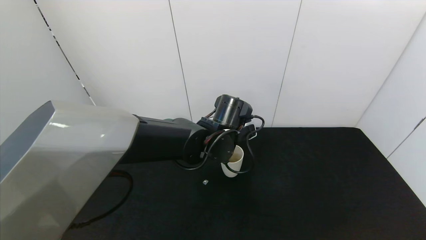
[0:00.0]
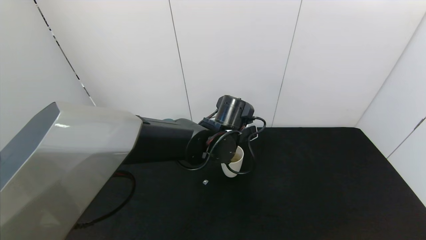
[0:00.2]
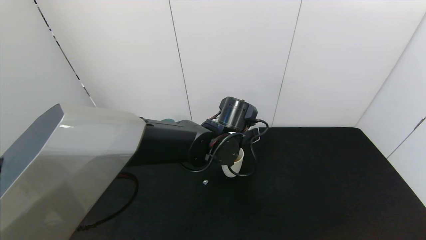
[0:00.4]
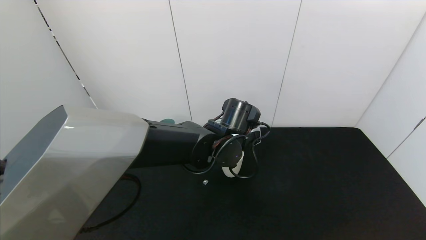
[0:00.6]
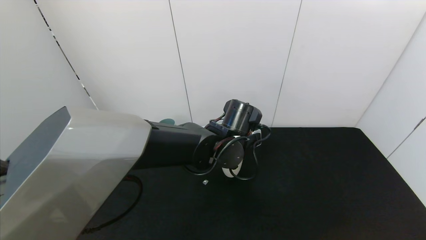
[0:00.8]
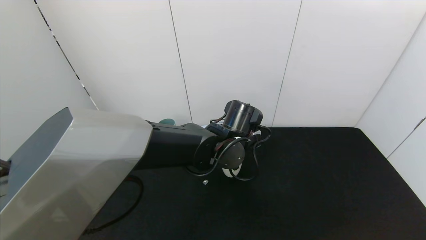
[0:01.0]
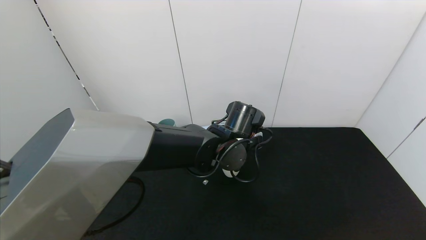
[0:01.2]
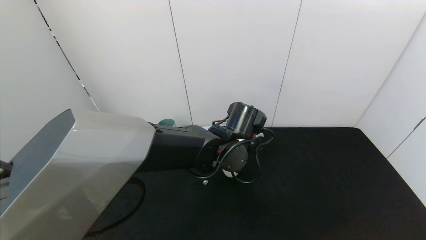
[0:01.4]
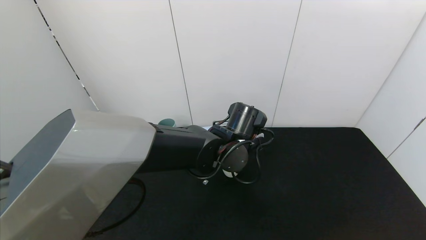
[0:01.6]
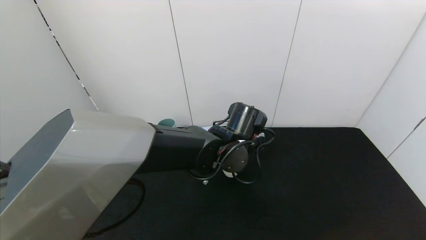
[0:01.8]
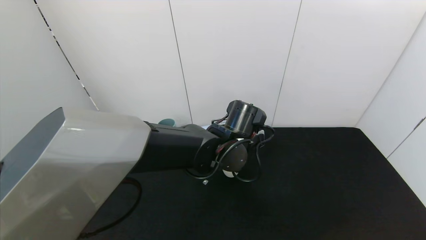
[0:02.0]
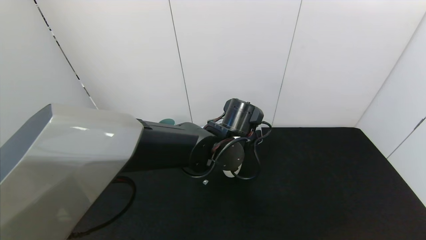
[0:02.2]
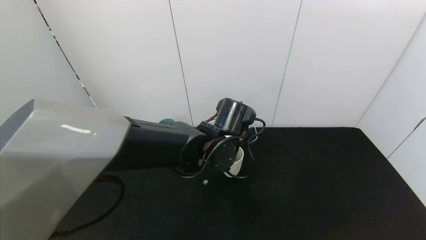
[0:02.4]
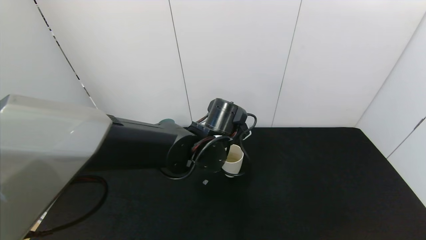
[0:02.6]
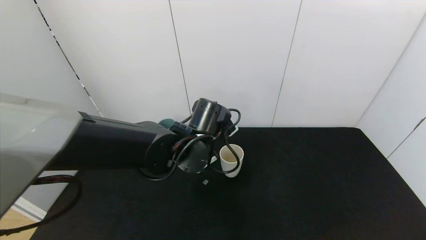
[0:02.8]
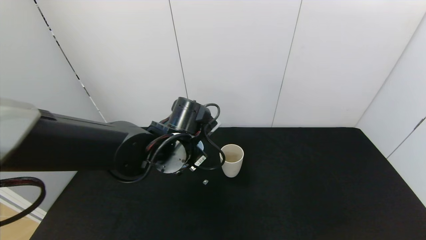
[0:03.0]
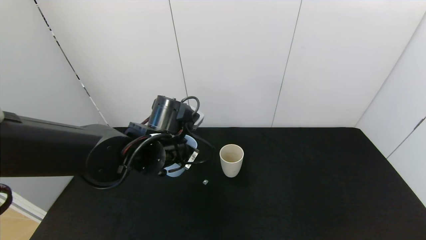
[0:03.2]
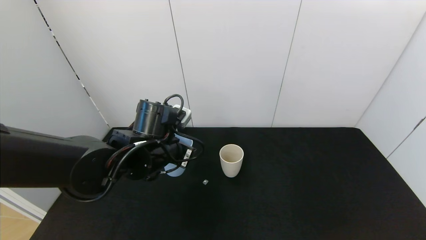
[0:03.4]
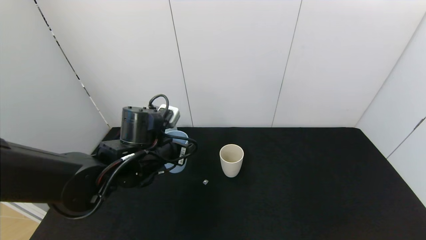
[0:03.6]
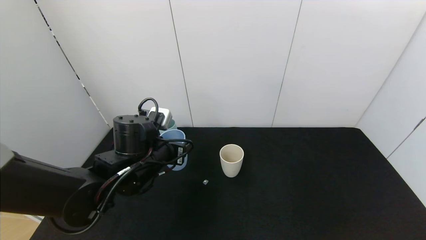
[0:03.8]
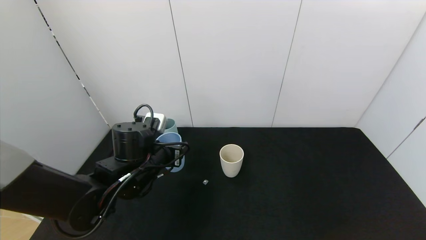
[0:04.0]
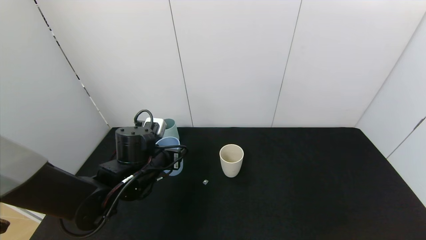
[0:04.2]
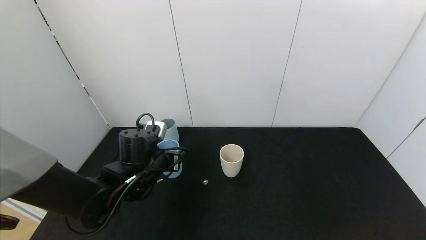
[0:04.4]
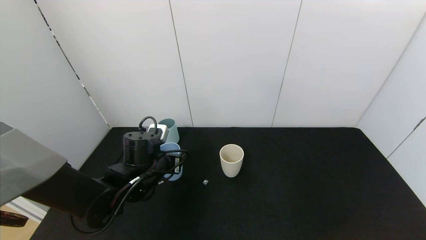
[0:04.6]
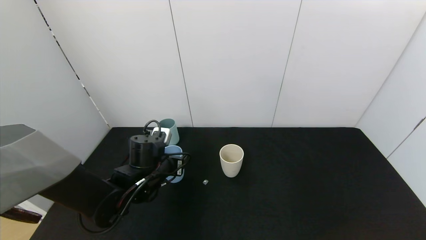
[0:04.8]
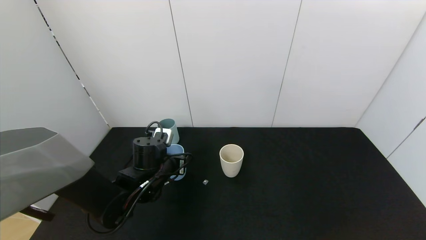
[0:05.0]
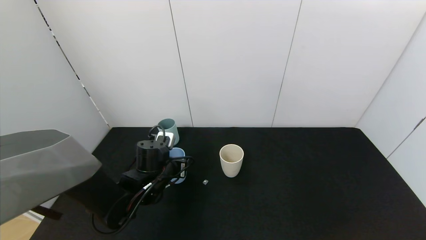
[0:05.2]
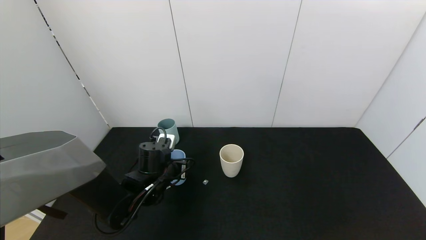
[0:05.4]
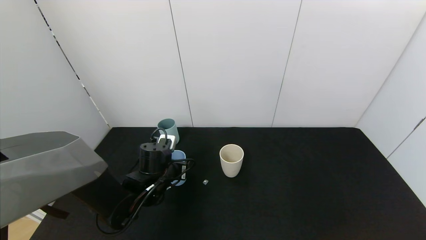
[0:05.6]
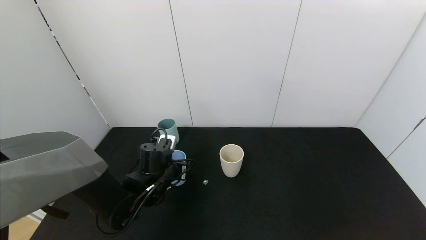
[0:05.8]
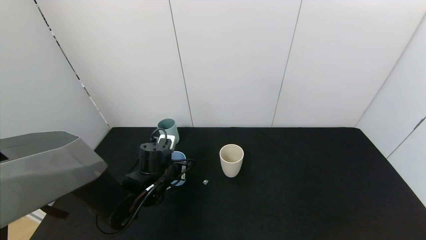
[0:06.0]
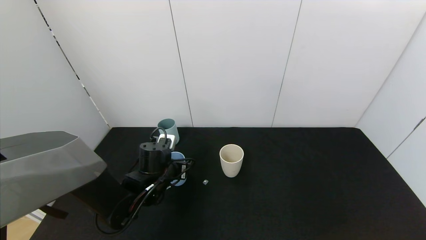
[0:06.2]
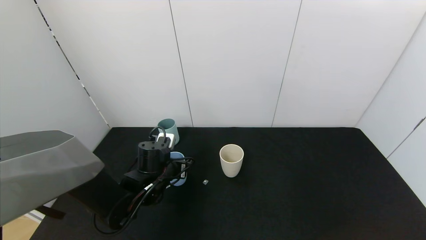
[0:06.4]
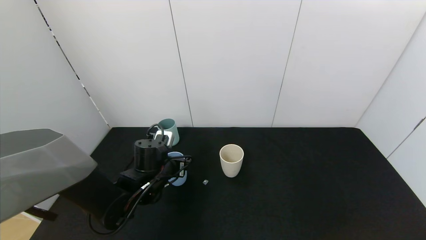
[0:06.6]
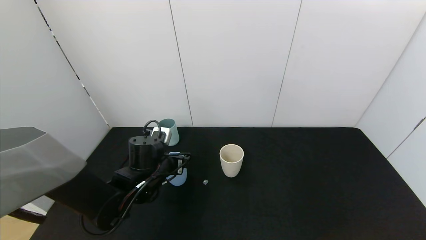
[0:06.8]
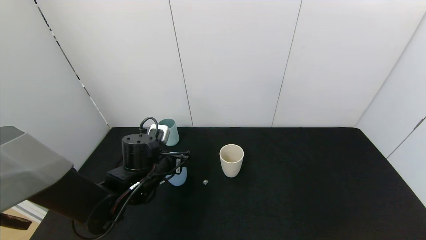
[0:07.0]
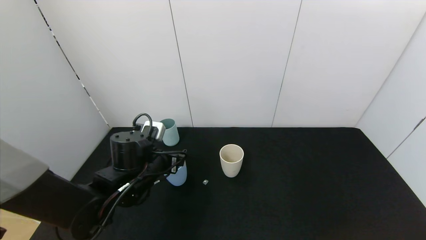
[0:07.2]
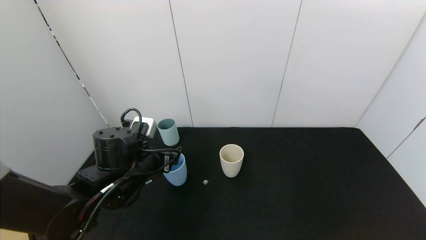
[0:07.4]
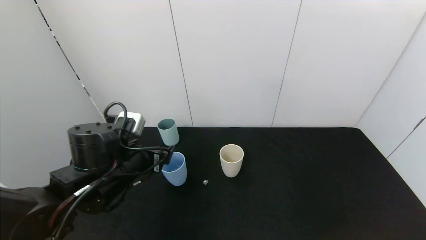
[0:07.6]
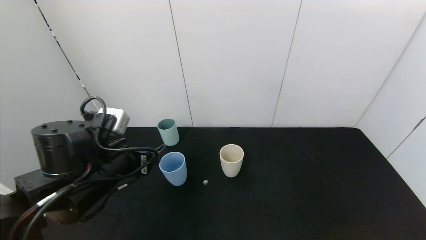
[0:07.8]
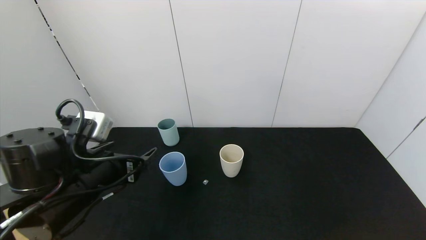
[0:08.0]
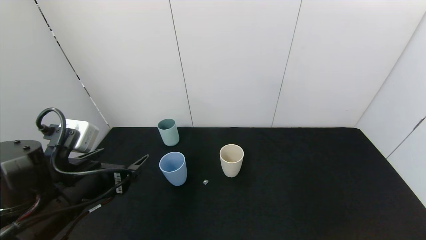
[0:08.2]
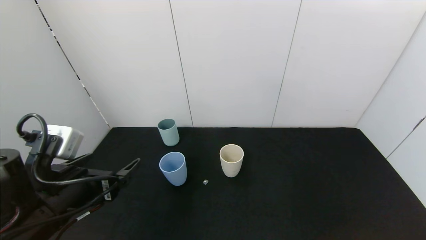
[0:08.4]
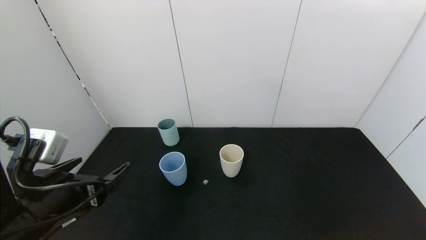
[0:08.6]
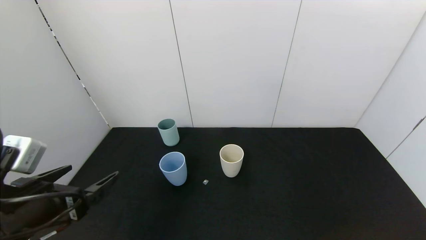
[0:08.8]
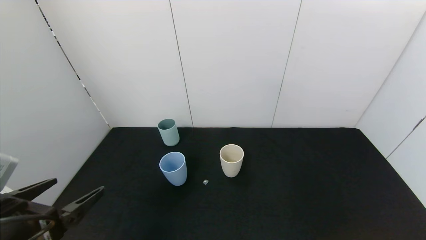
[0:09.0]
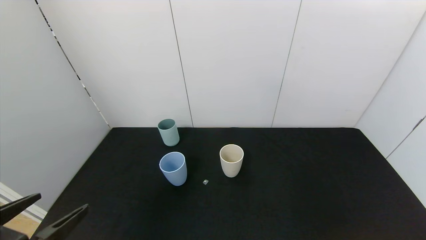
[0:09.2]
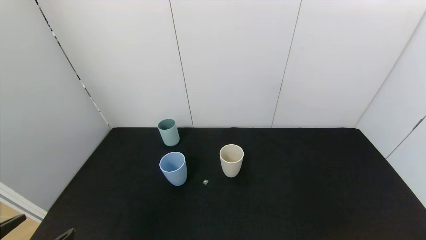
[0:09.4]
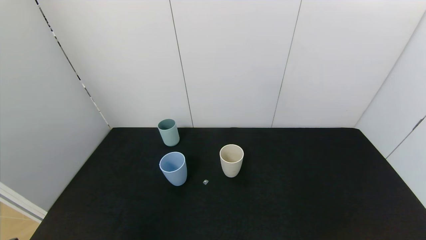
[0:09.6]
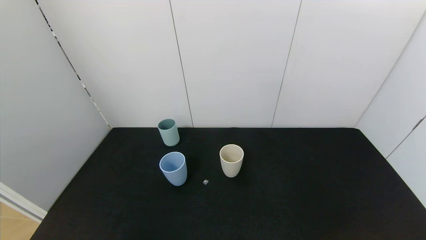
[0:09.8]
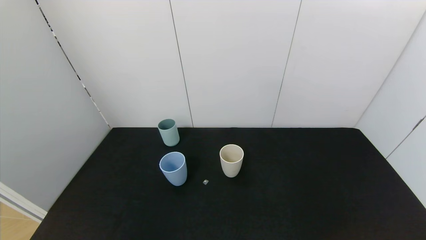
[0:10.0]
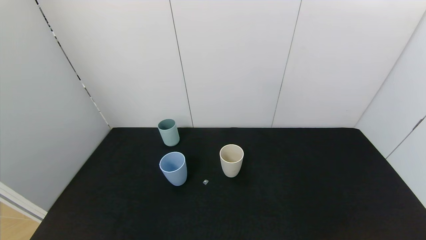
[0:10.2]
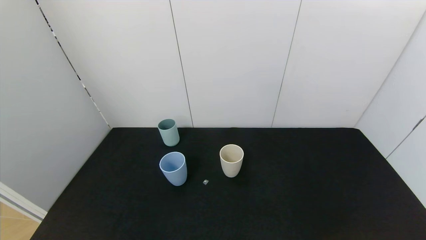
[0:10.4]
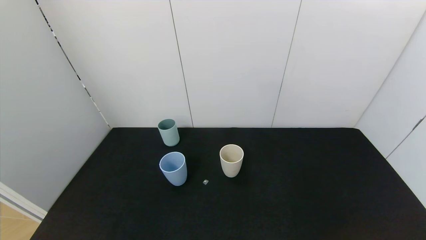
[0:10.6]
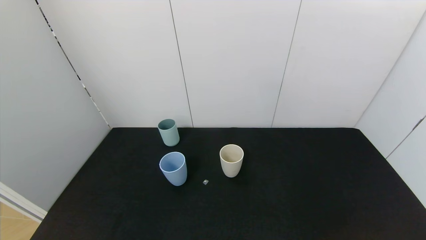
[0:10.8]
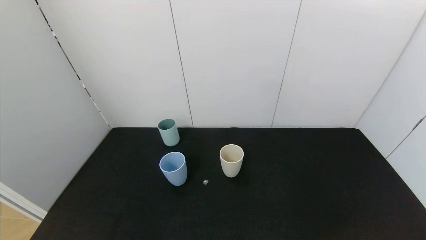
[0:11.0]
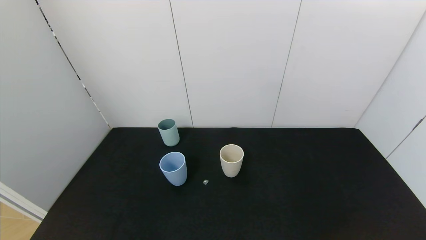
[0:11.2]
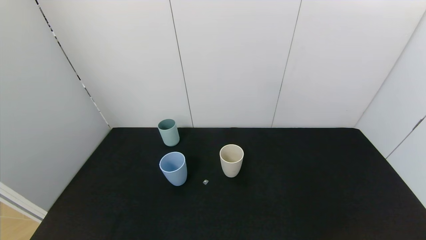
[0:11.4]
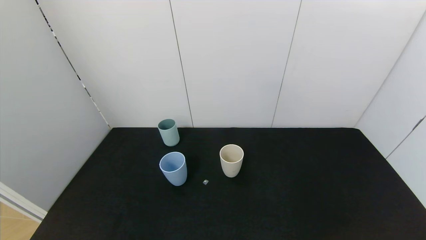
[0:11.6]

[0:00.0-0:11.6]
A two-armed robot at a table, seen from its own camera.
Task of the whole recording: use the gripper to pour the water into the other two cups on black table.
Step, 0:00.0 to 0:02.6: Pour water from blue cup to white cup with the left gripper.
Step, 0:02.8 to 0:08.4: Place the blue cup with the left gripper.
0:00.0 to 0:01.4: The grippers make only small movements.
0:01.4 to 0:02.8: The left gripper is displaced to the left by about 5 cm.
0:02.8 to 0:04.4: The left gripper heads to the left and downward, covering about 15 cm.
0:04.4 to 0:05.8: The left gripper travels downward by about 5 cm.
0:05.8 to 0:07.2: The left gripper moves upward, approximately 5 cm, and opens its fingers.
0:07.2 to 0:08.8: The left gripper is displaced backward, to the left and upward by some 20 cm.
0:08.8 to 0:10.2: The left gripper travels backward and downward by some 20 cm.

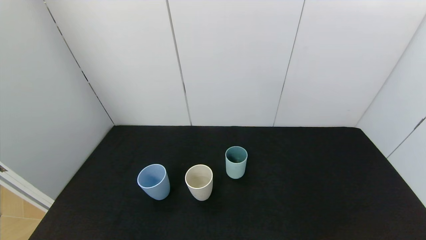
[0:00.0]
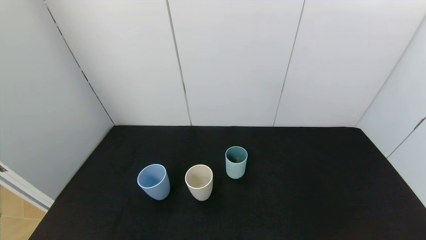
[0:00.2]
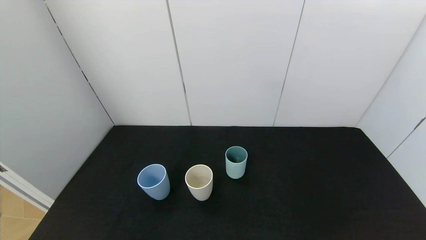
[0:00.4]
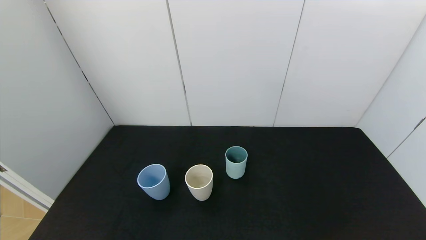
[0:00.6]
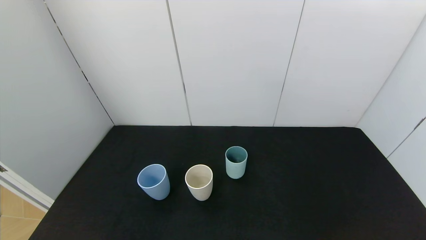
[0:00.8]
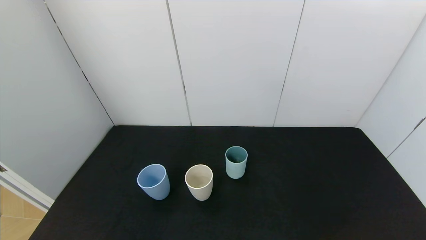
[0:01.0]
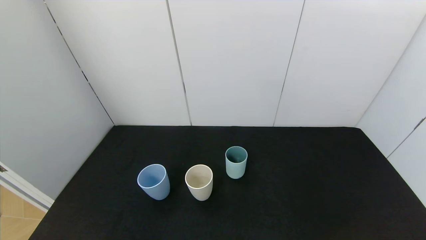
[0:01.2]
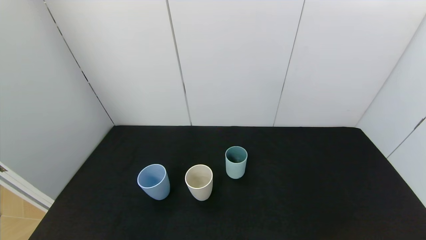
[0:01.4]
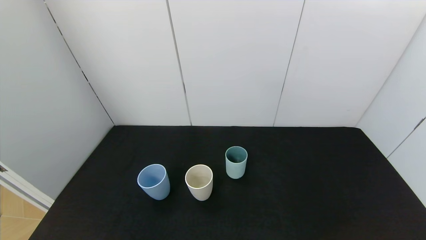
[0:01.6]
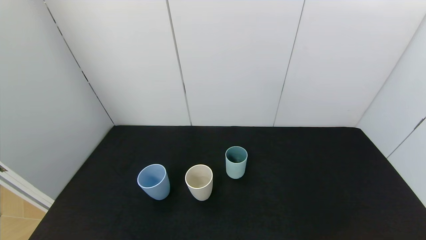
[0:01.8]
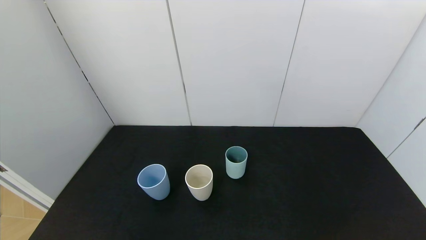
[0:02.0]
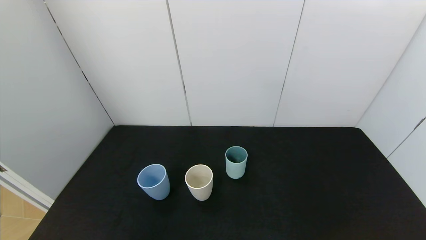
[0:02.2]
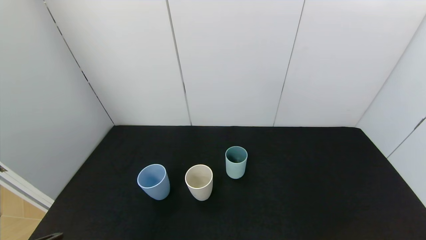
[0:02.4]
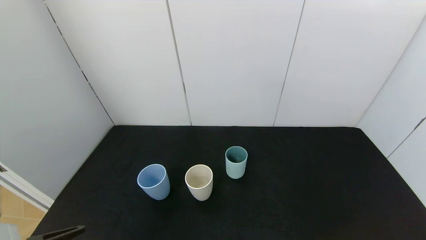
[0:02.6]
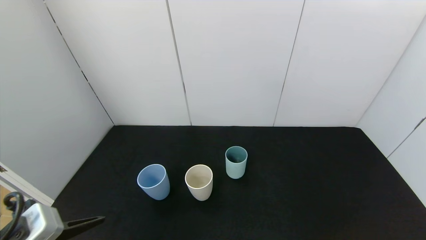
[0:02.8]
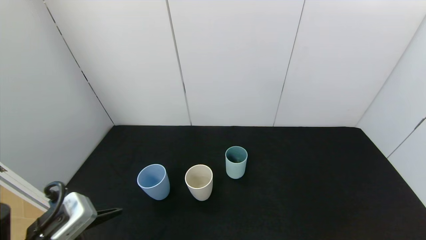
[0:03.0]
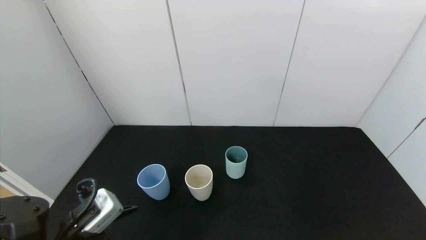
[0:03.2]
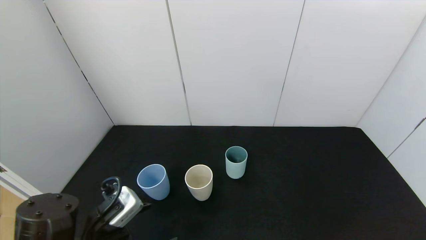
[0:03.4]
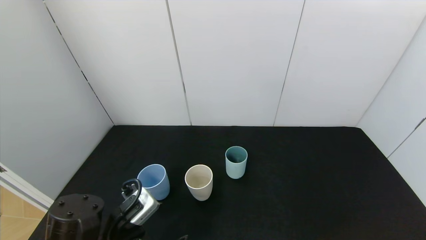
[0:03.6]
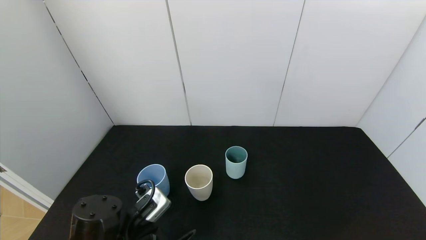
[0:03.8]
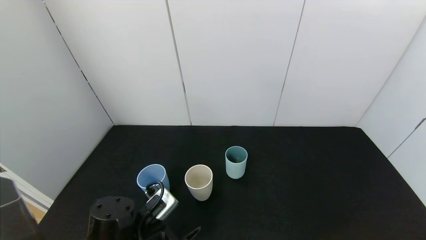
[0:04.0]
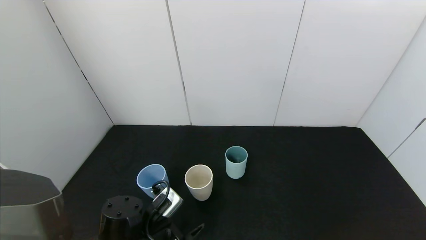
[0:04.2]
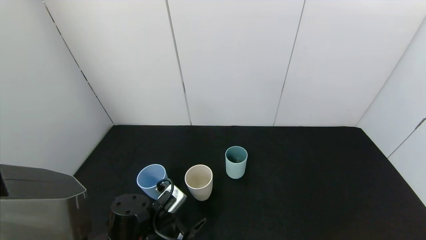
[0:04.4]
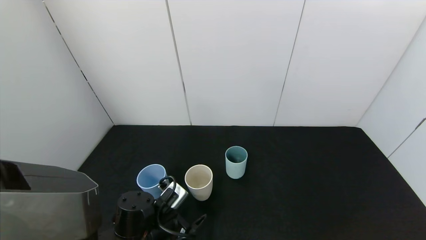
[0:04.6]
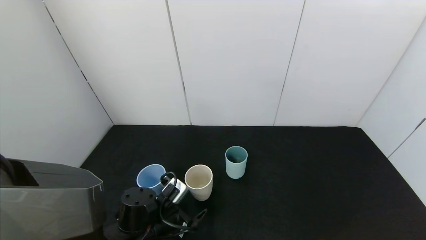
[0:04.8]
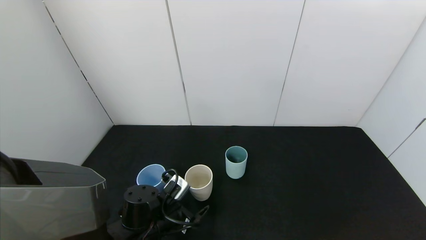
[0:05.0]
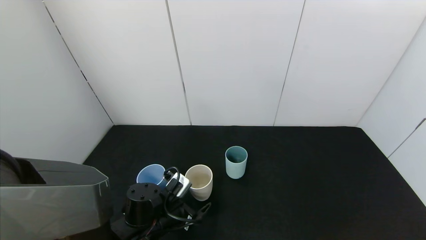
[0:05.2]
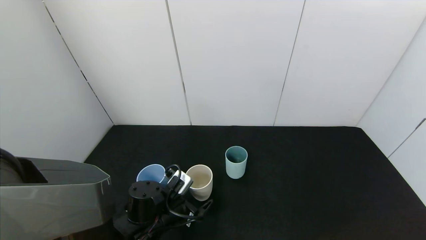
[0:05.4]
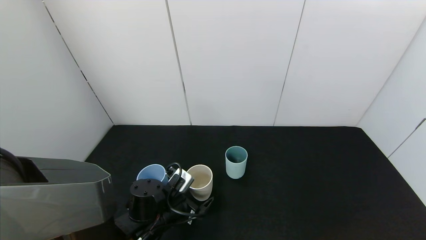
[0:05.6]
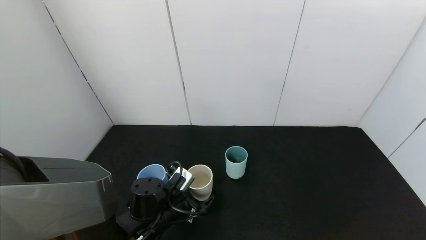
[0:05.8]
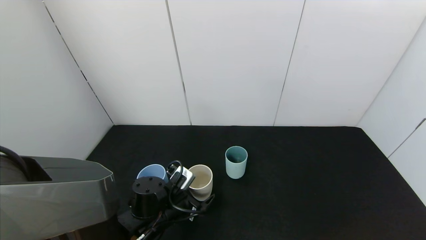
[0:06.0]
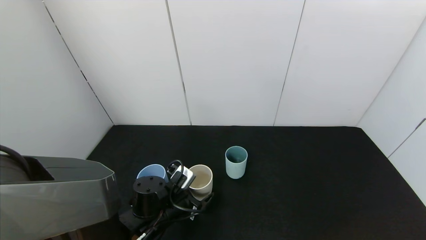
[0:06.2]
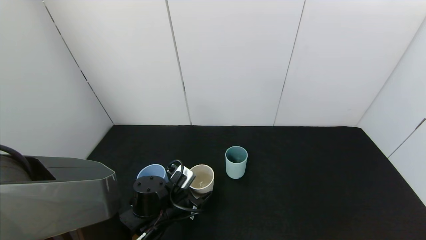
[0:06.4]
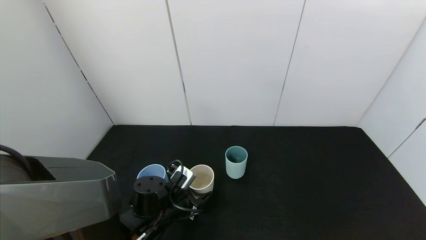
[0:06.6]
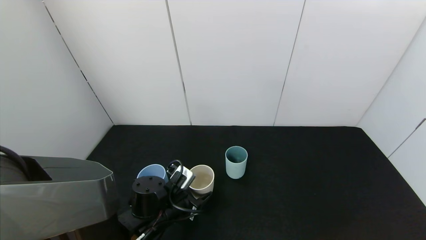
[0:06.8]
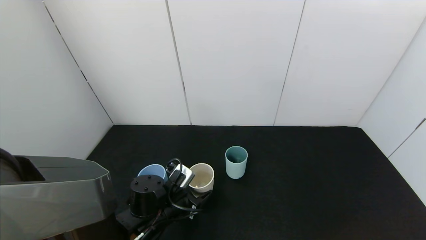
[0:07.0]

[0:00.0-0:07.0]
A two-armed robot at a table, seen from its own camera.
Task of the whole recording: use the gripper to pour the water into the other two cups on black table.
0:01.4 to 0:02.8: The left gripper is displaced forward and upward by roughly 15 cm.
0:02.8 to 0:04.2: The left gripper moves downward, forward and to the right, roughly 15 cm.
0:04.2 to 0:05.6: The left gripper heads forward, covering approximately 5 cm.
0:05.6 to 0:07.0: The left gripper closes its fingers.
